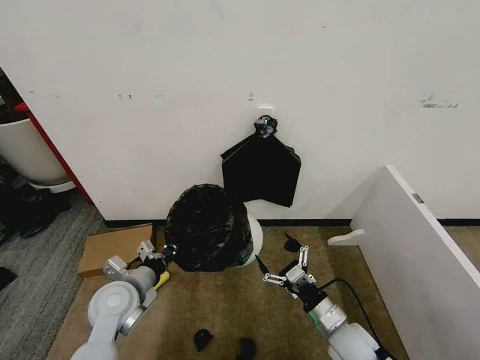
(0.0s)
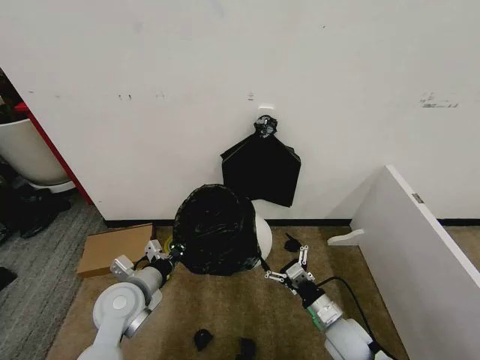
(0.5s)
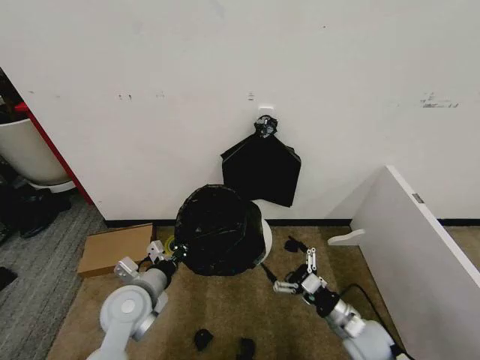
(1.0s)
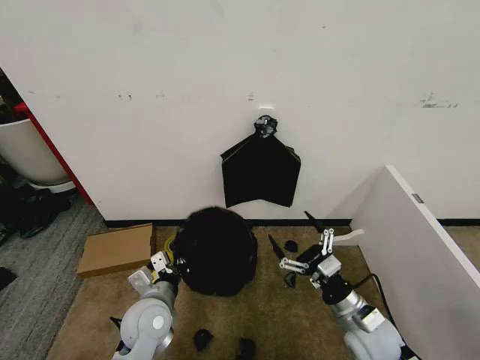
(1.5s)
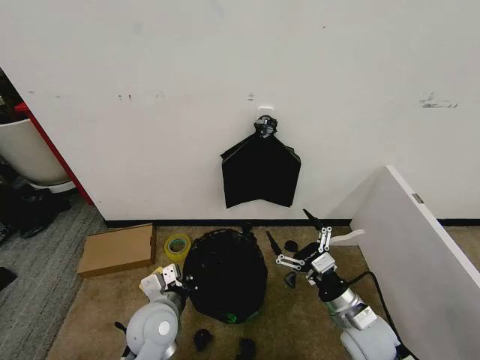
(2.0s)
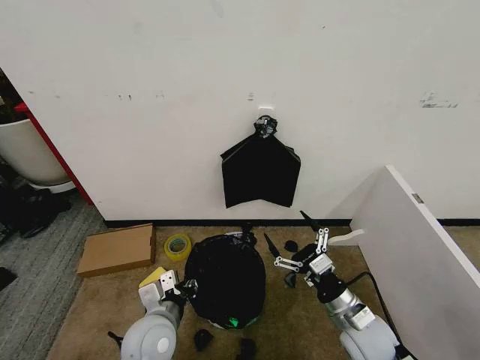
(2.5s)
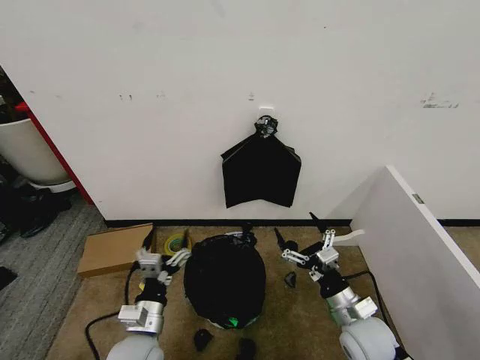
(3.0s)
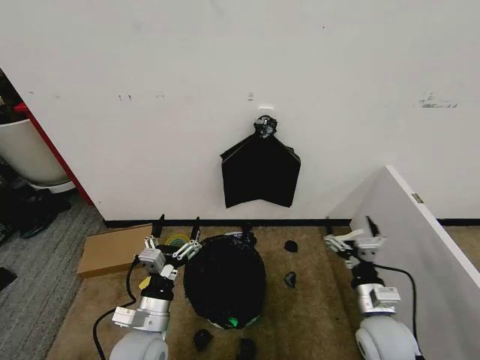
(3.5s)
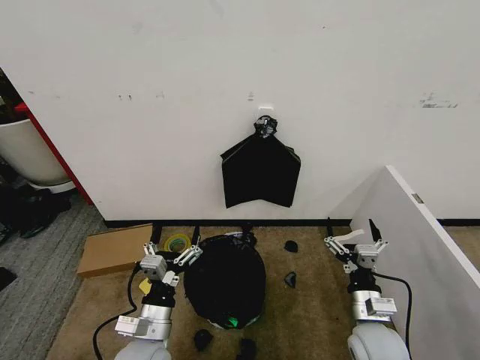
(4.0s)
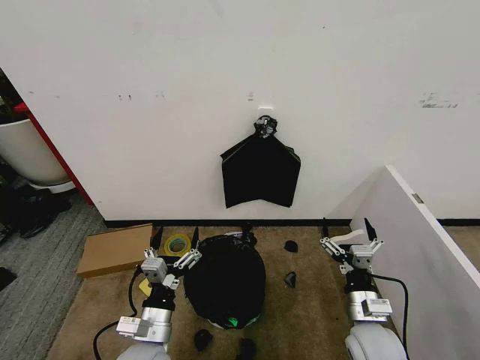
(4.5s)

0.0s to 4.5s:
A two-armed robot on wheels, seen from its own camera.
Task of the whole recording: Place the garbage bag over the trash bin.
0.0s to 2.0s: The left gripper goes about 10 cm to the right, while the right gripper shifts roughly 5 cm upward.
2.0s to 4.5s: The left gripper moves backward, about 5 cm, and opens up.
